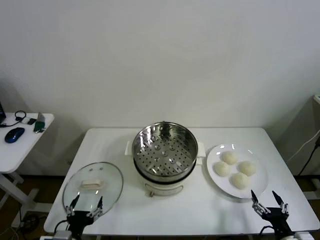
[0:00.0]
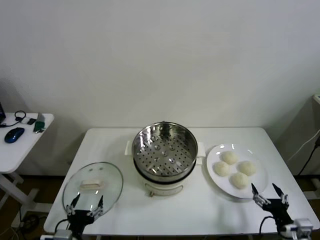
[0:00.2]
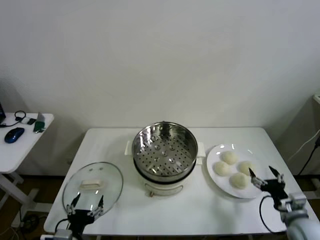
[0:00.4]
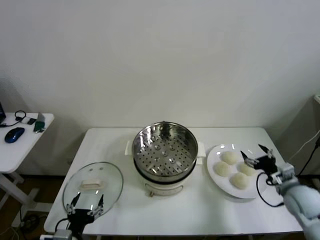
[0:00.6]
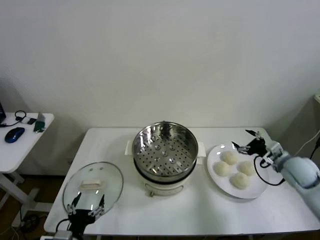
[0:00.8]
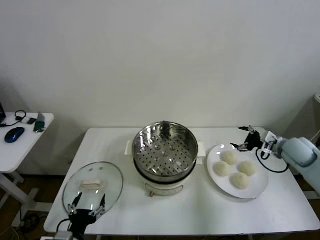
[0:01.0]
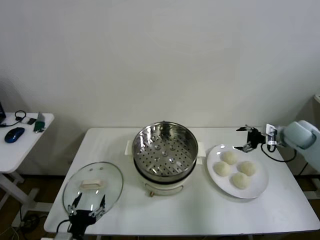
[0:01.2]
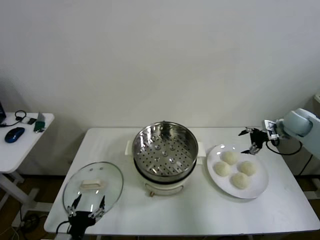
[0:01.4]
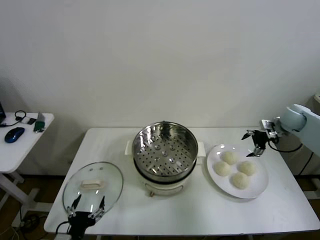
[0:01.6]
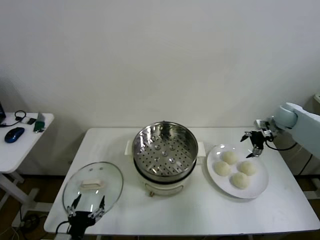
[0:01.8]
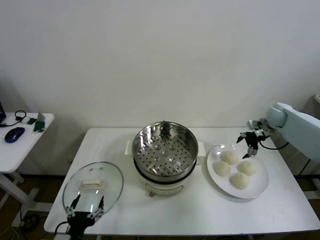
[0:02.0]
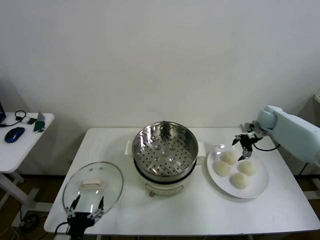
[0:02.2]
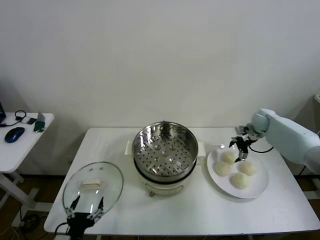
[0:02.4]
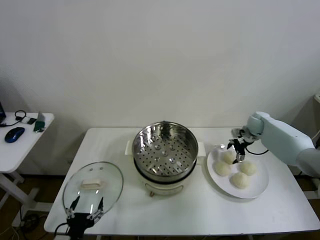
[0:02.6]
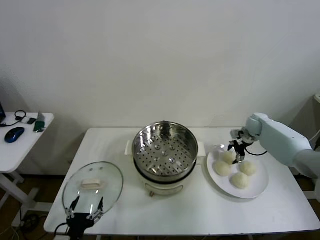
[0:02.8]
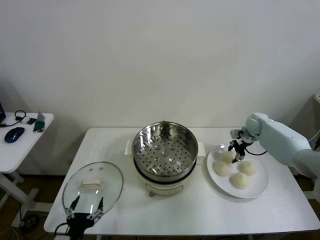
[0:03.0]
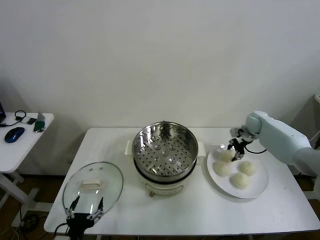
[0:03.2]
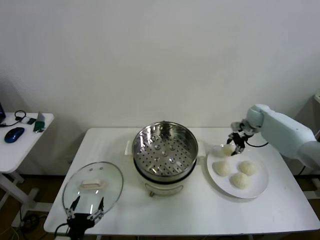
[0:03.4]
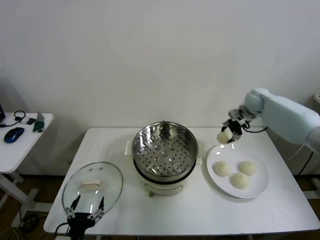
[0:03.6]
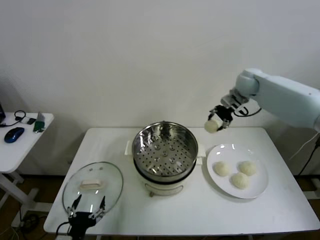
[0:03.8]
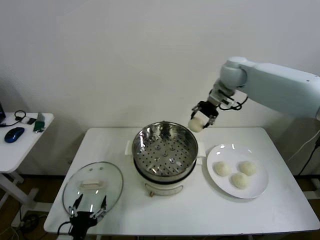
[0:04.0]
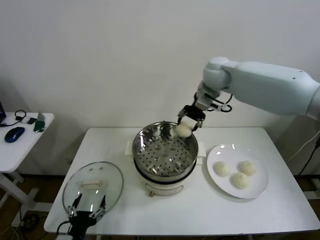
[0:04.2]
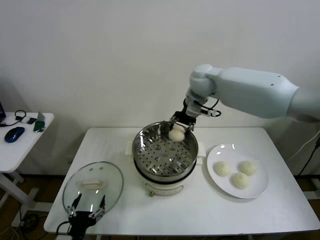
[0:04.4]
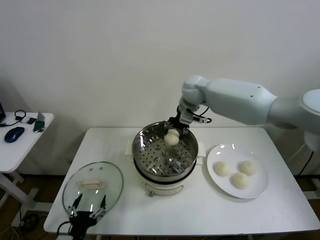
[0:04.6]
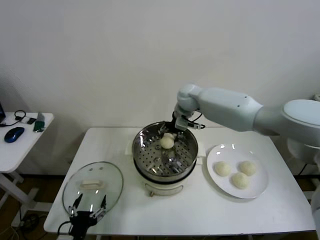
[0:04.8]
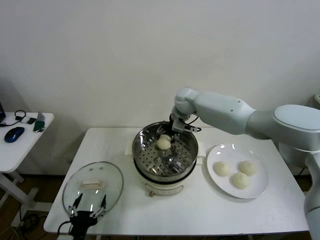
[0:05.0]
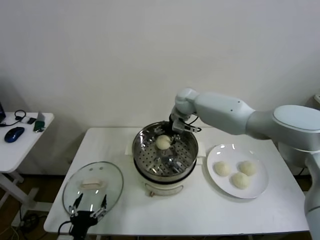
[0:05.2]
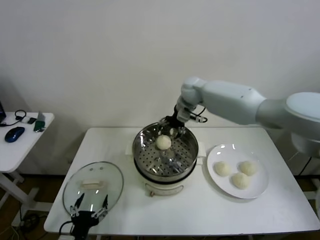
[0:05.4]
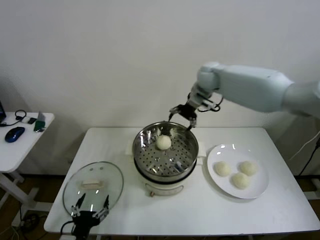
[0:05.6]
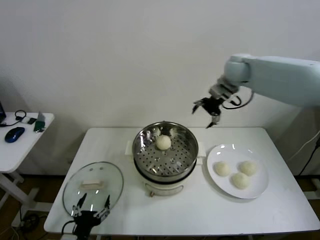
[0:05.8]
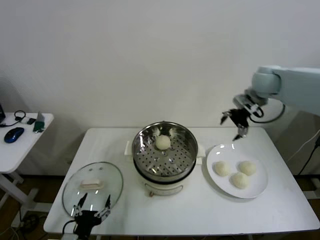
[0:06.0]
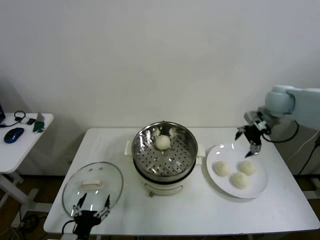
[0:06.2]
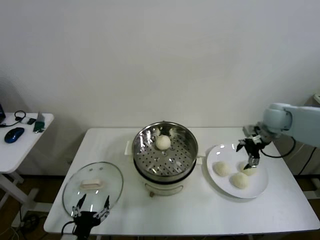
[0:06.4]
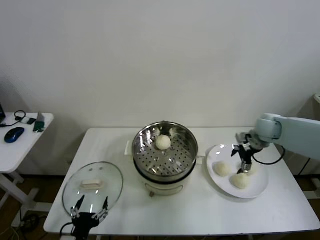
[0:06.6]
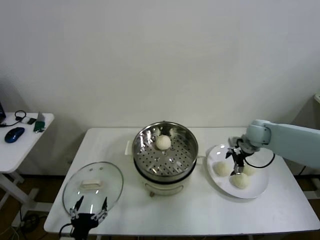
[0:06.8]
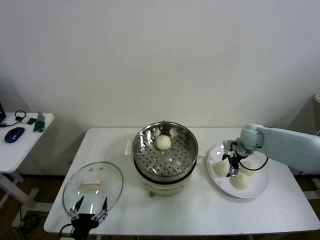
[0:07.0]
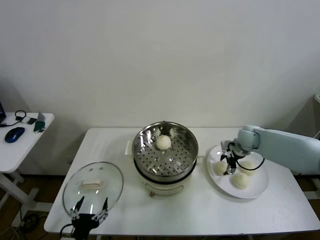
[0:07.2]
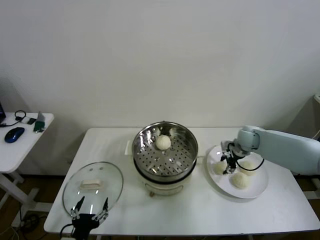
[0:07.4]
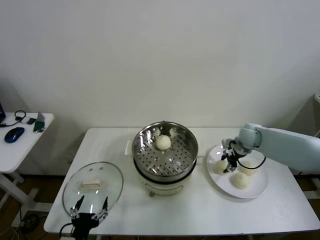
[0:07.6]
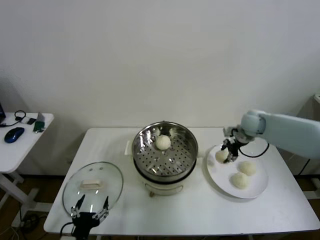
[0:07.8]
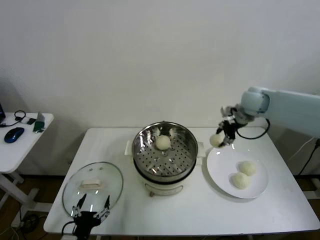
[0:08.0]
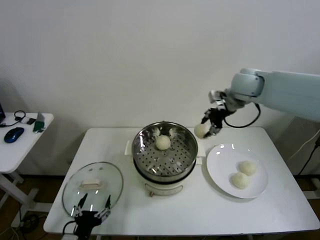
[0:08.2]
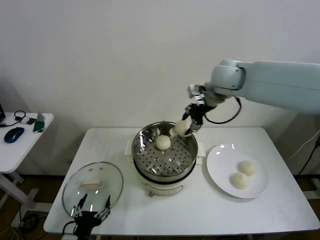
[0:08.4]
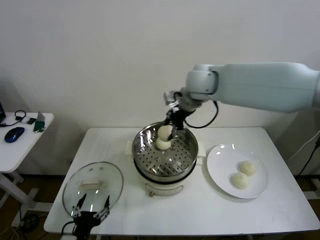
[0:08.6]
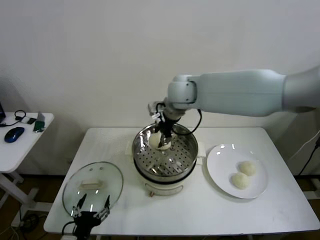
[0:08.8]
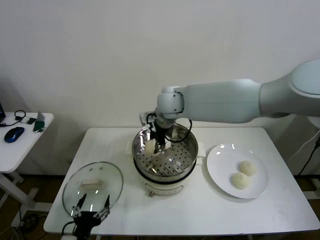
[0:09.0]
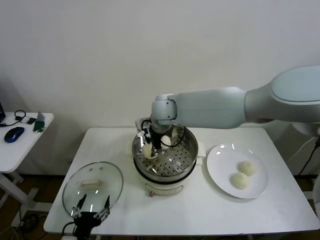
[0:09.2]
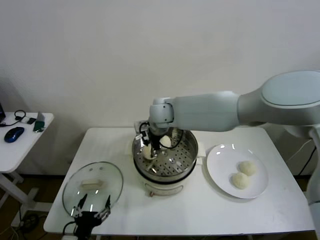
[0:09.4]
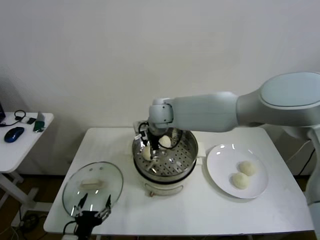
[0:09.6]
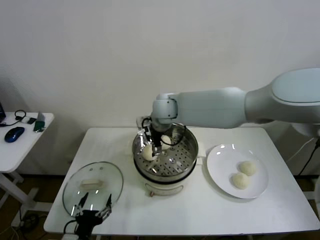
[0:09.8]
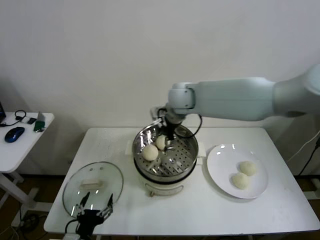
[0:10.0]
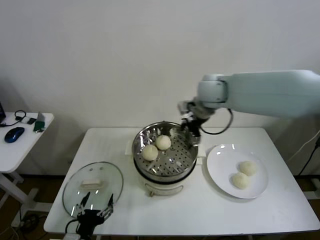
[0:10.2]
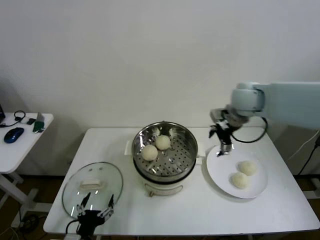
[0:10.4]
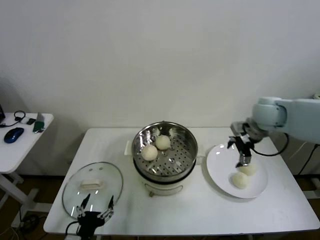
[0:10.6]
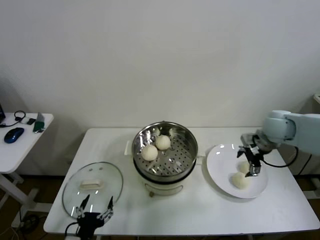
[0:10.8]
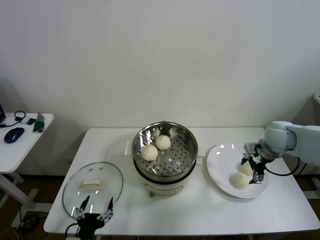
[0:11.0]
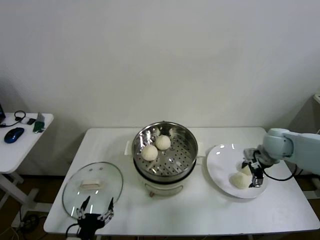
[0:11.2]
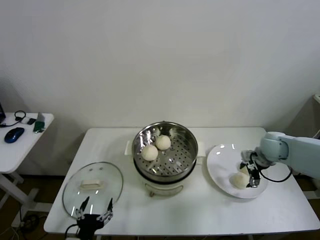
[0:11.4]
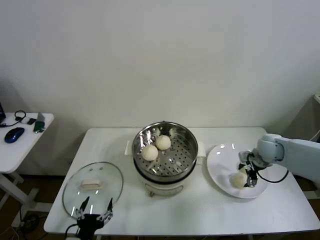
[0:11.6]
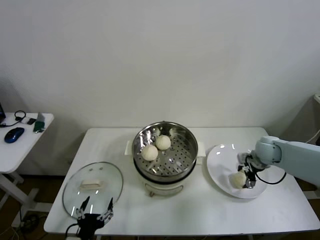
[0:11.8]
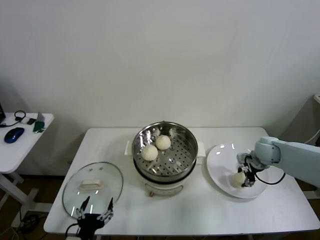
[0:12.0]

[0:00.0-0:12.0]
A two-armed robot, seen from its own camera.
Step, 0:00.0 to 0:02.8: Grasp the baozi in the plate with right gripper.
Step, 0:03.0 to 0:05.2: Place the baozi on the steamer with right gripper.
Step, 0:05.4 to 0:07.2: Grasp the baozi in the plate with right gripper.
Step, 0:07.6 to 0:09.4: Place the baozi on the steamer with right gripper.
Step, 0:09.6 to 0:12.0: Grasp the baozi in the plate with right gripper.
0:01.6 to 0:03.0: The right gripper shifts approximately 15 cm downward, to the left and forward, and closes its fingers.
0:03.0 to 0:04.4: The right gripper is displaced to the left and upward by about 35 cm.
0:04.4 to 0:06.0: The right gripper shifts some 25 cm to the right, and opens.
0:06.0 to 0:07.6: The right gripper shifts approximately 20 cm downward, and closes up.
0:07.6 to 0:09.0: The right gripper moves to the left and upward, roughly 35 cm.
0:09.0 to 0:10.4: The right gripper goes approximately 25 cm to the right, and opens up.
0:10.4 to 0:12.0: The right gripper is displaced downward and to the right by approximately 20 cm, and closes.

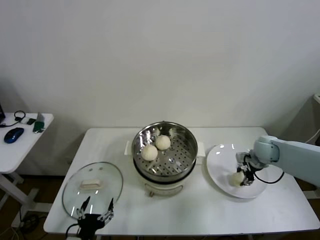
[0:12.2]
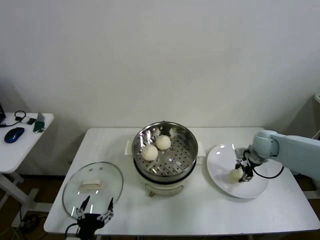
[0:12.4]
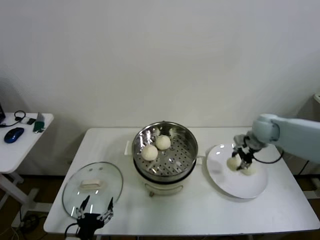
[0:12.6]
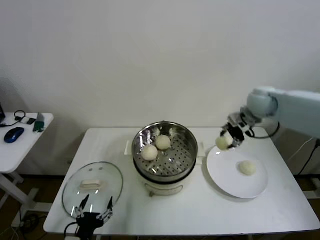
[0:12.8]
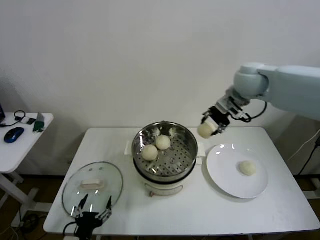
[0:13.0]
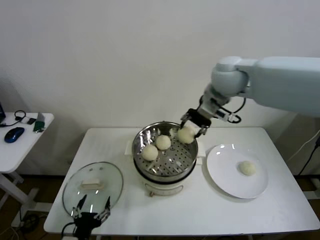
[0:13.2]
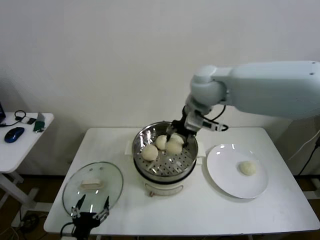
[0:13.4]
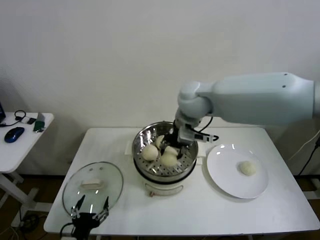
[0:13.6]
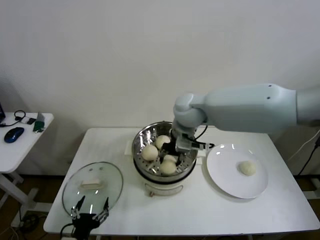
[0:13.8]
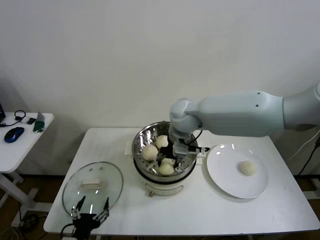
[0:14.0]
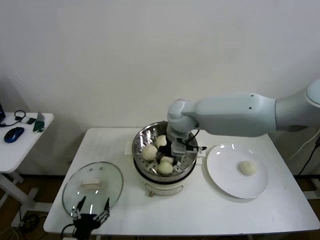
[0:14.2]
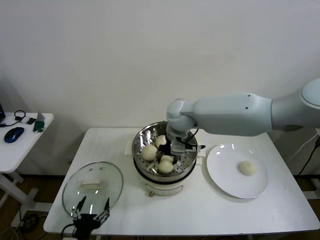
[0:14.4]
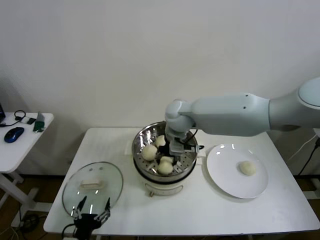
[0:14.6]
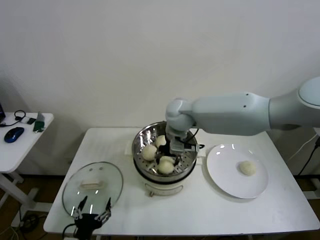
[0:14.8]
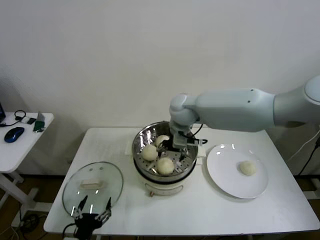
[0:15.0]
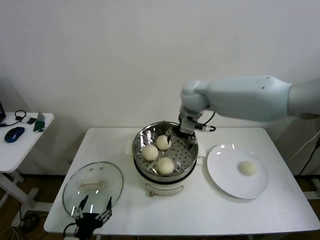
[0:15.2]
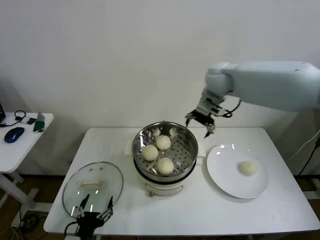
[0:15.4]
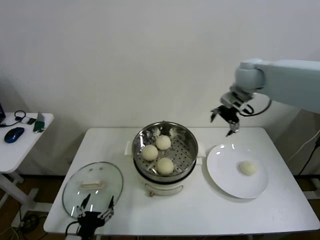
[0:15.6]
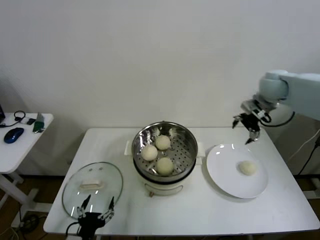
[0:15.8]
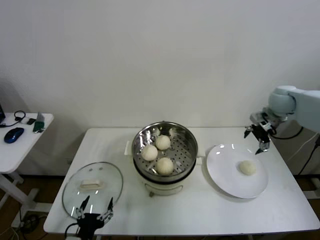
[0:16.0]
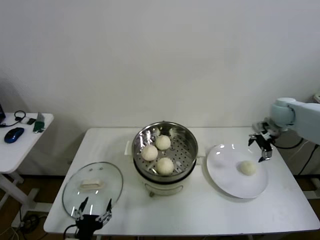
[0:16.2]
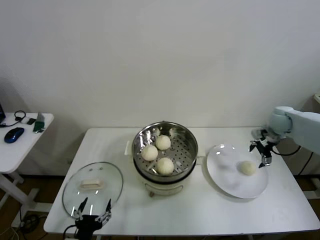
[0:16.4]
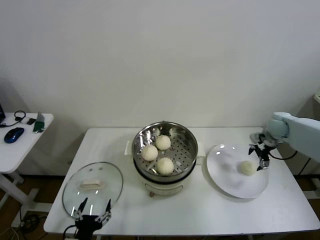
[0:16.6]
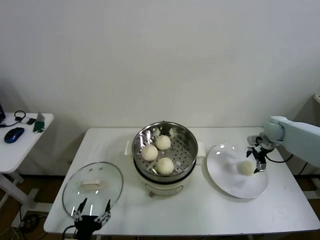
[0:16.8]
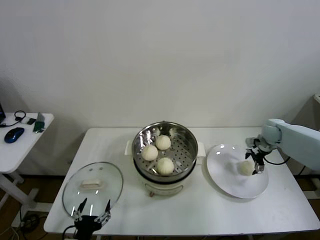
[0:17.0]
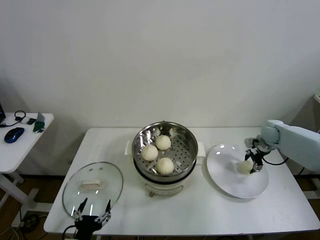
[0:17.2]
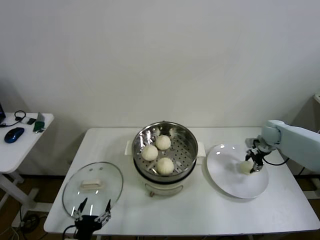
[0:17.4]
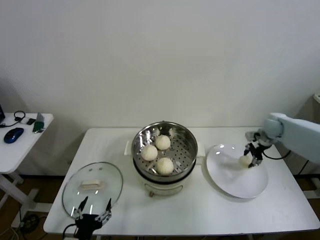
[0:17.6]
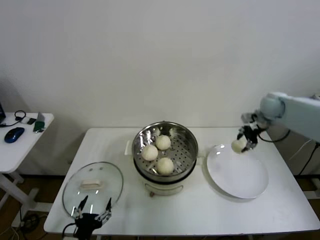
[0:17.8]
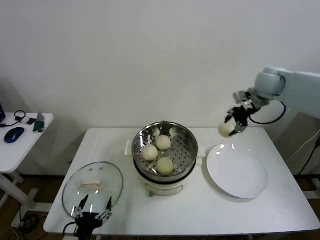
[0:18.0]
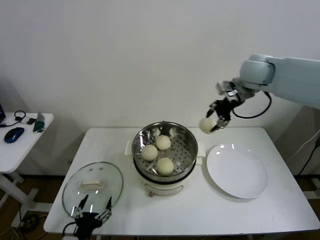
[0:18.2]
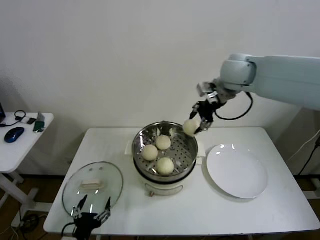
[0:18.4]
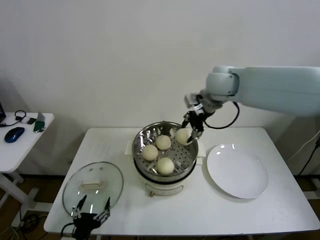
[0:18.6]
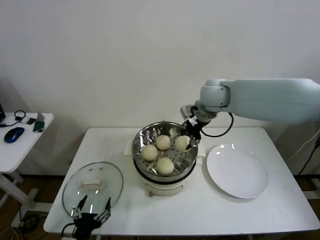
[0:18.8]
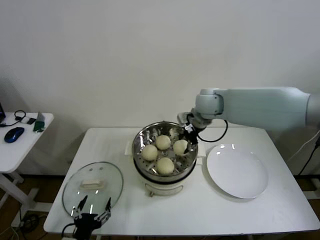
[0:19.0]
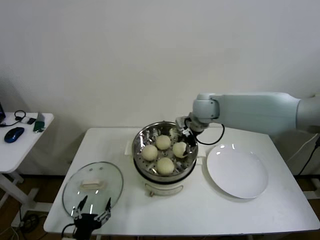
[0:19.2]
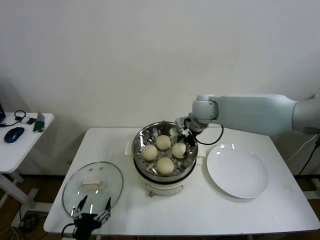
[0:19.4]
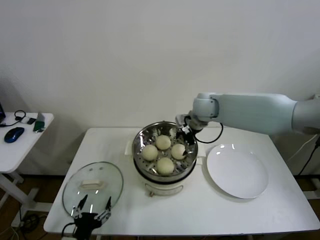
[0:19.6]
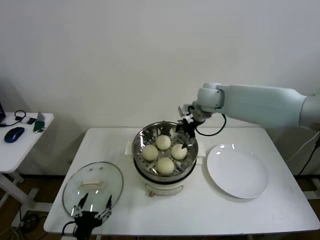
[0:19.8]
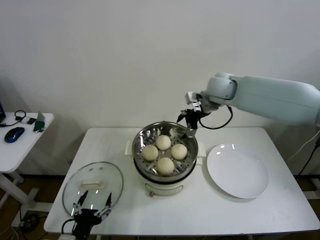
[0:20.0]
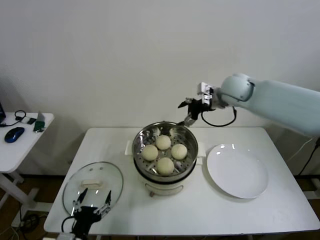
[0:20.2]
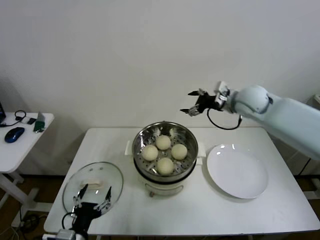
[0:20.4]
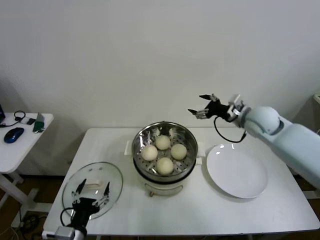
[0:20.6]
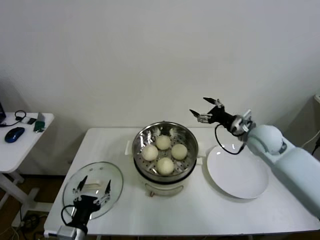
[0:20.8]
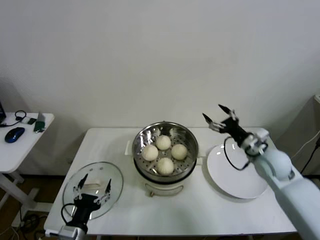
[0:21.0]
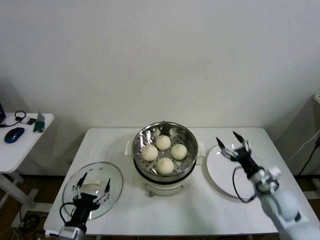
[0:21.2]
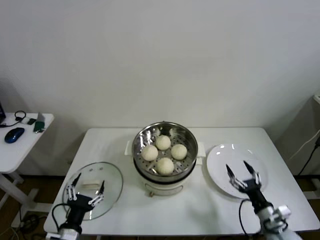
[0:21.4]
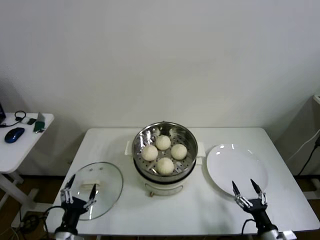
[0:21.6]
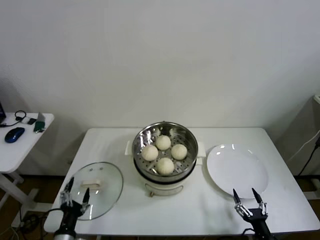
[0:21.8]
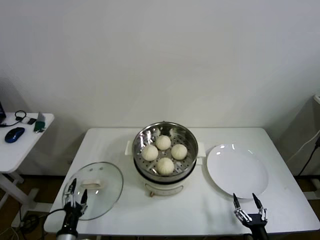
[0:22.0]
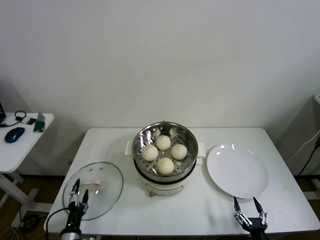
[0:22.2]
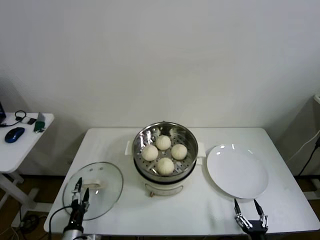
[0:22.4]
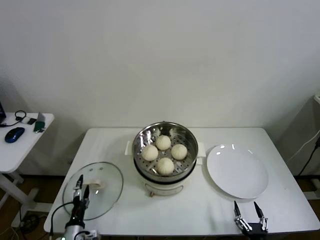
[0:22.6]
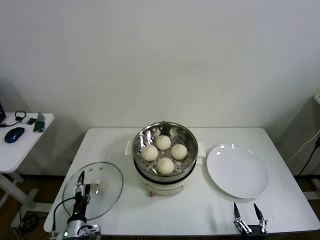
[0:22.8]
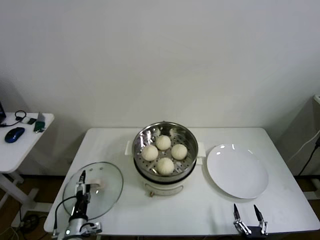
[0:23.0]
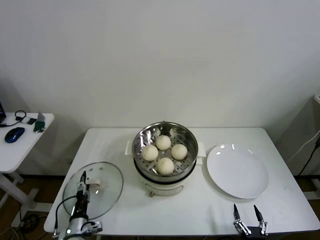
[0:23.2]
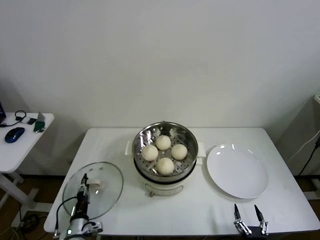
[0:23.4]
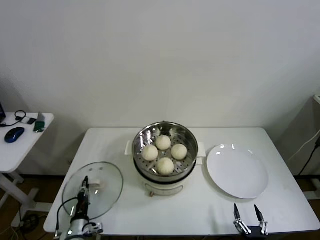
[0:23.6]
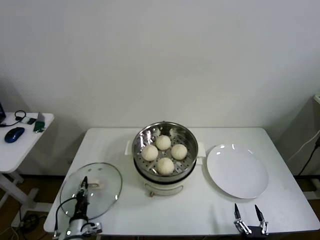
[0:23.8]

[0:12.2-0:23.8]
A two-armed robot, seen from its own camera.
Step, 0:12.2 to 0:14.8: Place the baozi on the steamer with right gripper.
Step, 0:15.0 to 0:17.2: Grasp the baozi in the plate with right gripper.
Step, 0:17.4 to 0:19.4: Place the baozi on the steamer with right gripper.
Step, 0:19.6 to 0:23.6: Grasp the pot lid with left gripper.
0:12.2 to 0:13.6: The right gripper shifts approximately 35 cm to the left and upward.
0:13.6 to 0:15.0: The right gripper ends up roughly 5 cm from where it was, and opens up.
0:15.0 to 0:16.6: The right gripper goes approximately 35 cm to the right.
0:16.6 to 0:18.0: The right gripper shifts some 20 cm upward and to the left, and closes its fingers.
0:18.0 to 0:19.4: The right gripper is displaced to the left and downward by roughly 20 cm, and opens up.
0:19.4 to 0:21.0: The right gripper travels to the right, backward and downward by roughly 30 cm, and opens.
0:21.0 to 0:22.4: The right gripper goes some 40 cm backward and downward; the left gripper goes roughly 10 cm downward.
0:22.4 to 0:23.8: The left gripper closes.
